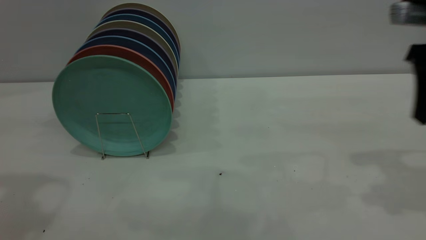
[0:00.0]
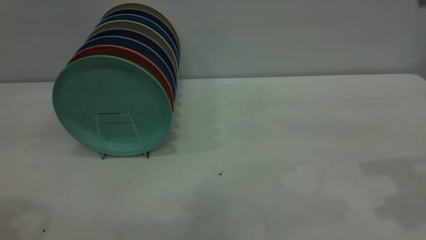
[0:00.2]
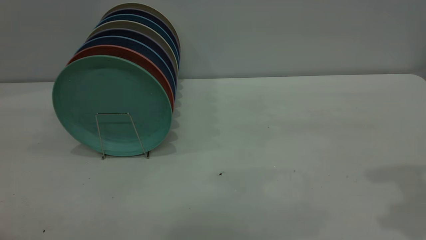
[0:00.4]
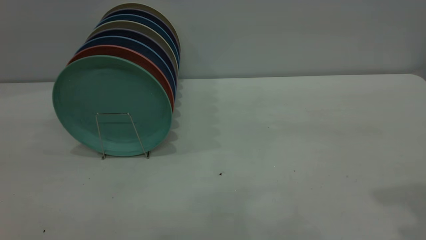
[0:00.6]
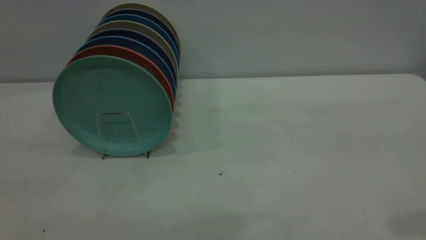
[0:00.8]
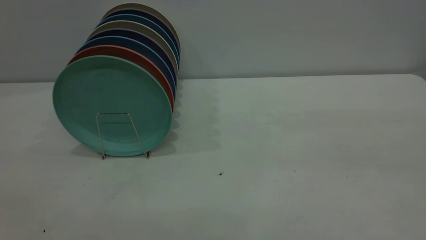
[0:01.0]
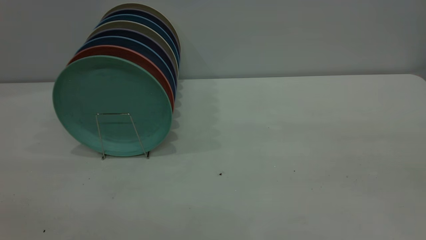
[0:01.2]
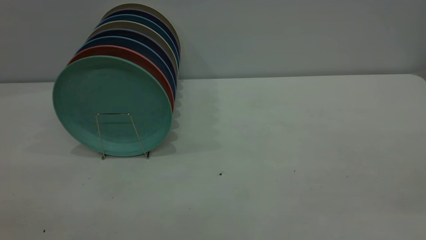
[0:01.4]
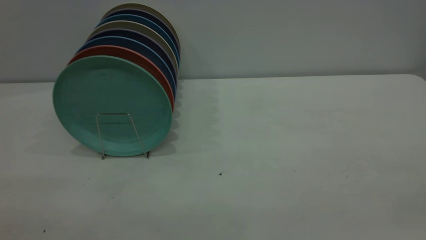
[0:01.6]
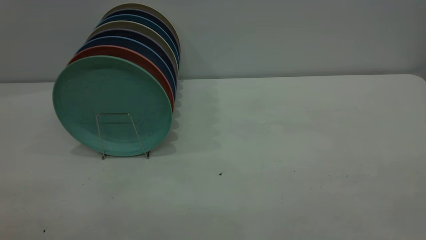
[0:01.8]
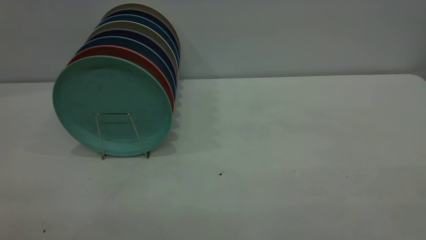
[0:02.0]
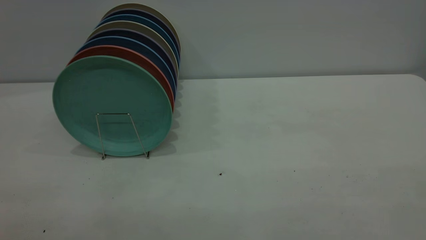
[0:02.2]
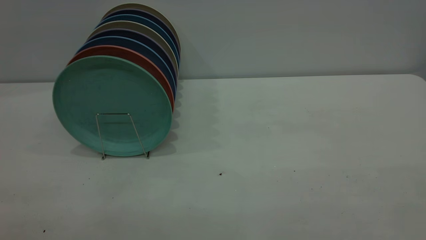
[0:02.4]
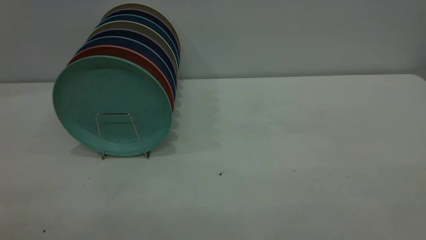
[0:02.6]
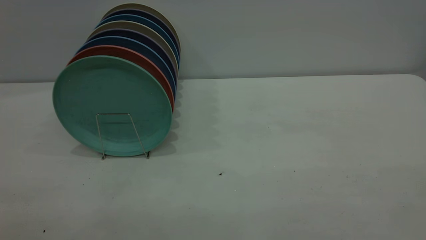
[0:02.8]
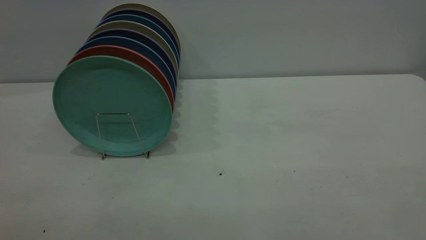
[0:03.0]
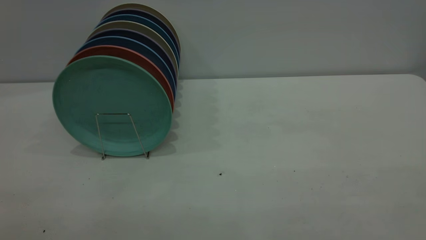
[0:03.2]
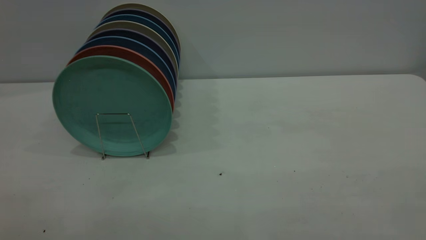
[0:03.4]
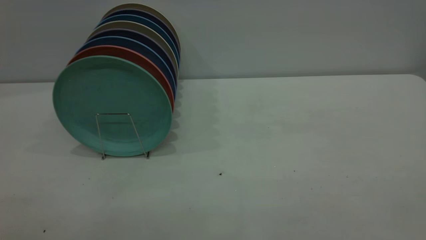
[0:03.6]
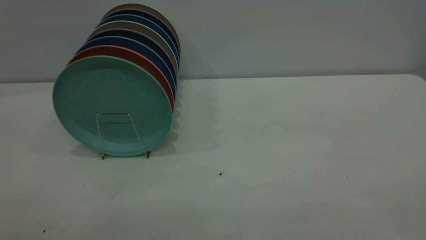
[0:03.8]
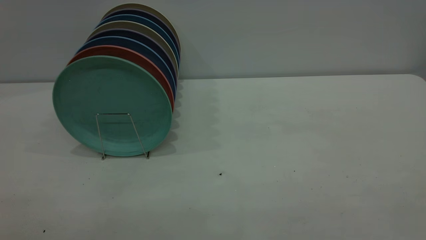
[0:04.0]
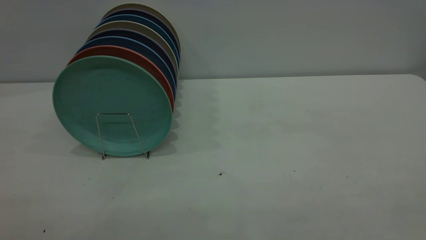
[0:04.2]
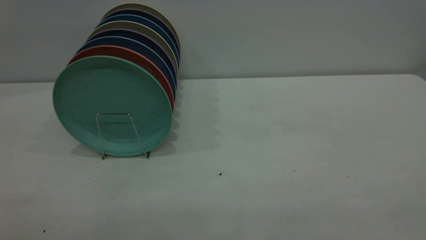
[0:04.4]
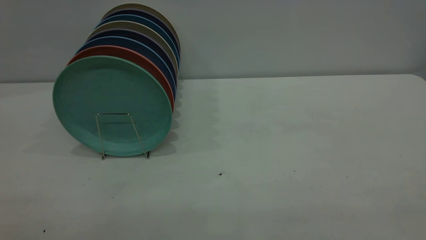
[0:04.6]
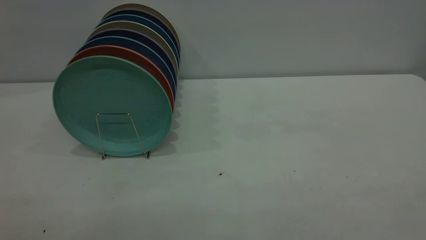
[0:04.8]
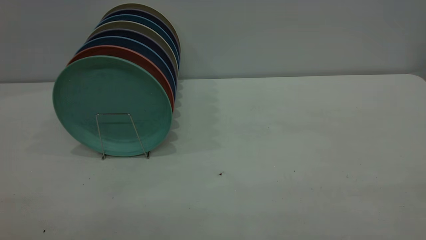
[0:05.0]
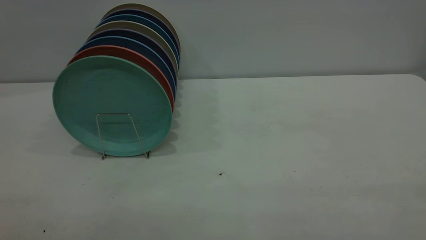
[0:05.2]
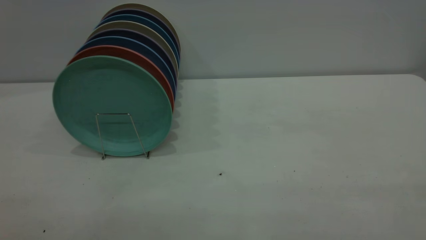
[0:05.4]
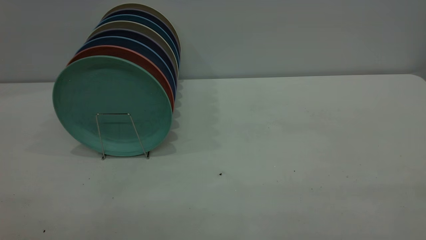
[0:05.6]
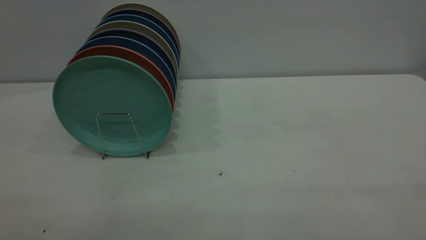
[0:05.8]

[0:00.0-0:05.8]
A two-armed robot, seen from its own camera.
Task of the whole recording: the right gripper grasp the green plate, the right gripper pass the green plate to the left gripper, and the left gripper place the green plate on the plate rack.
0:00.0 to 0:01.4: The right gripper is displaced backward by about 25 cm.
